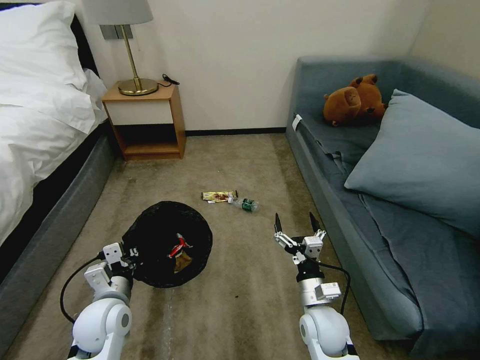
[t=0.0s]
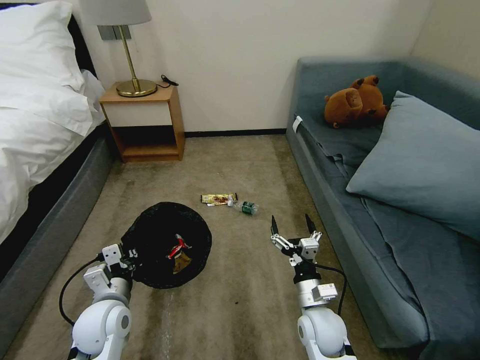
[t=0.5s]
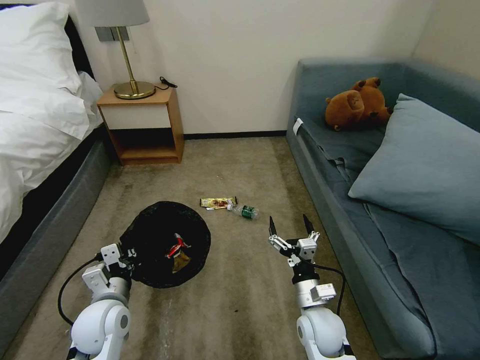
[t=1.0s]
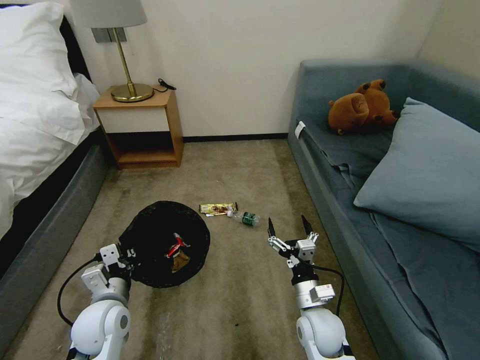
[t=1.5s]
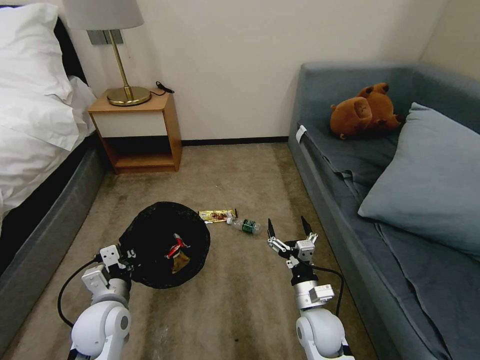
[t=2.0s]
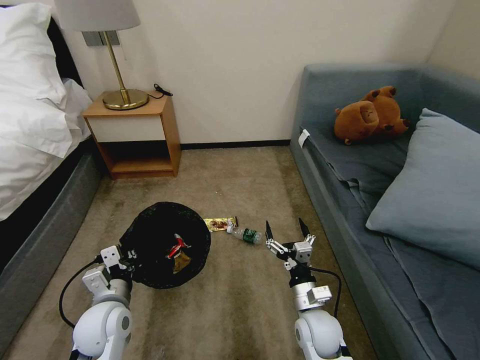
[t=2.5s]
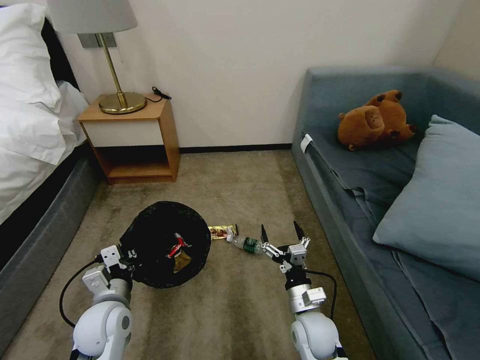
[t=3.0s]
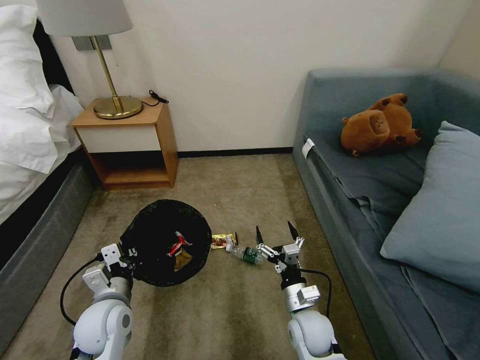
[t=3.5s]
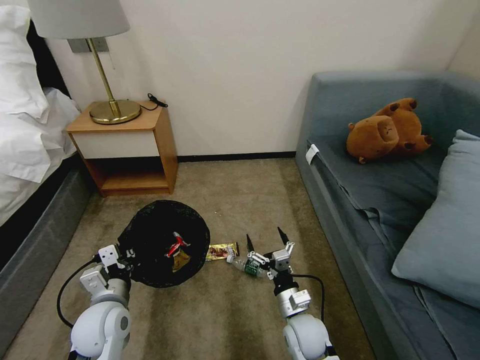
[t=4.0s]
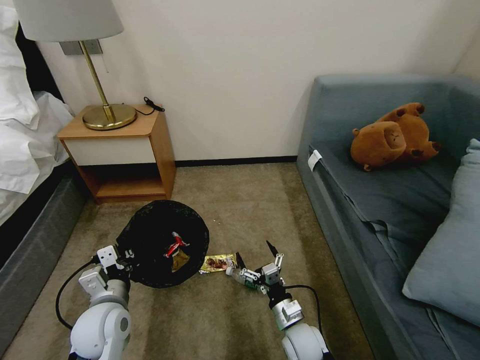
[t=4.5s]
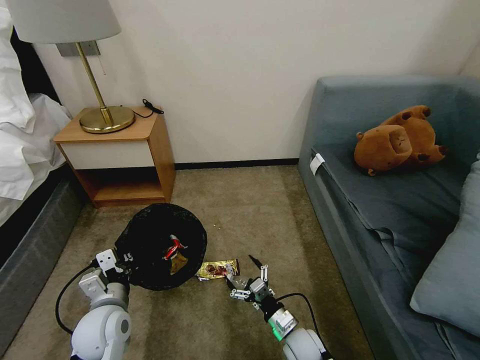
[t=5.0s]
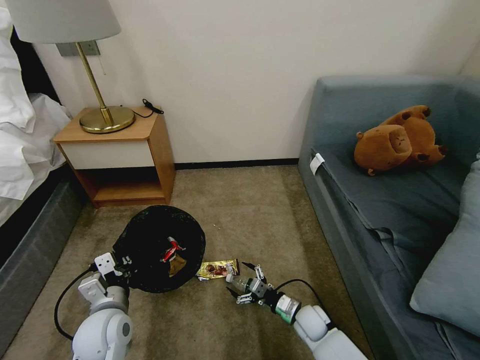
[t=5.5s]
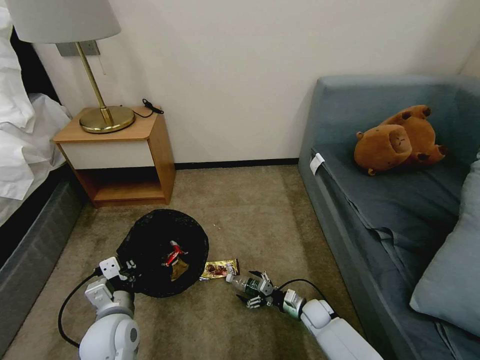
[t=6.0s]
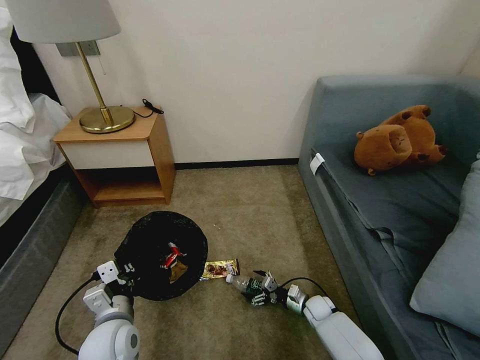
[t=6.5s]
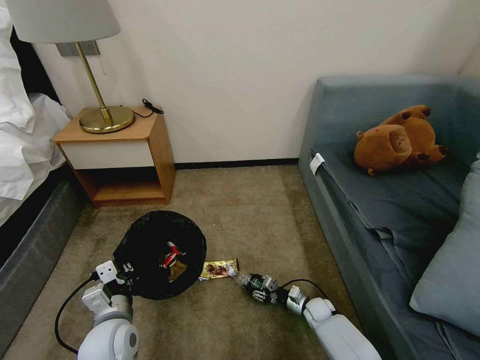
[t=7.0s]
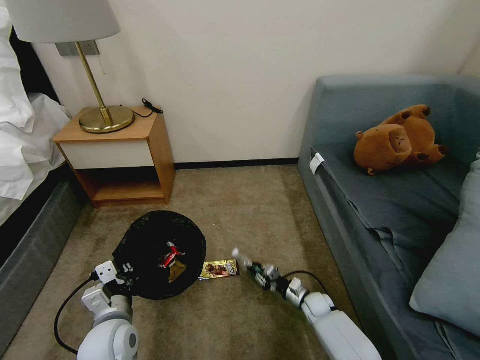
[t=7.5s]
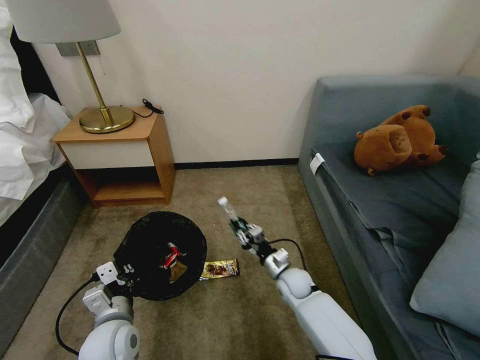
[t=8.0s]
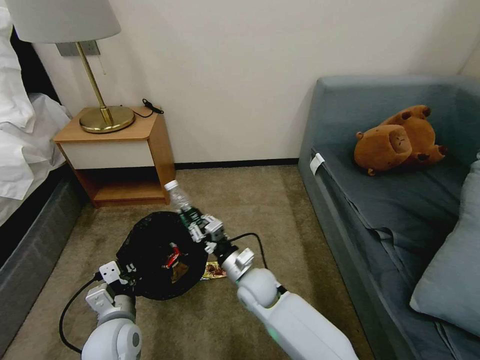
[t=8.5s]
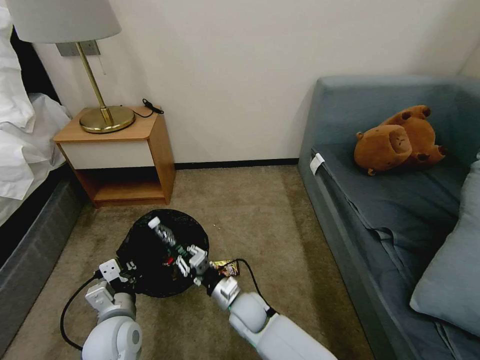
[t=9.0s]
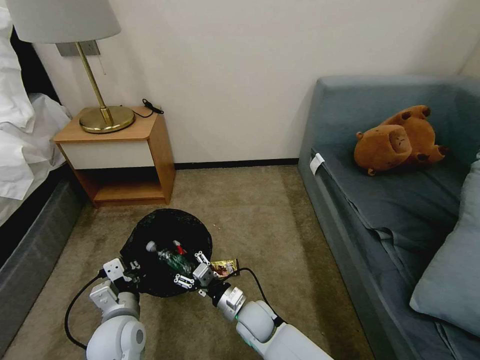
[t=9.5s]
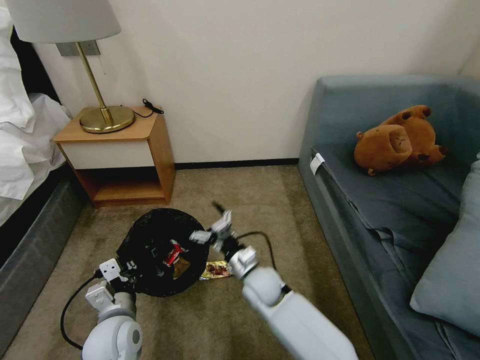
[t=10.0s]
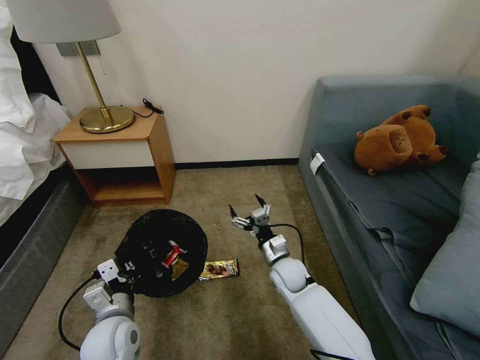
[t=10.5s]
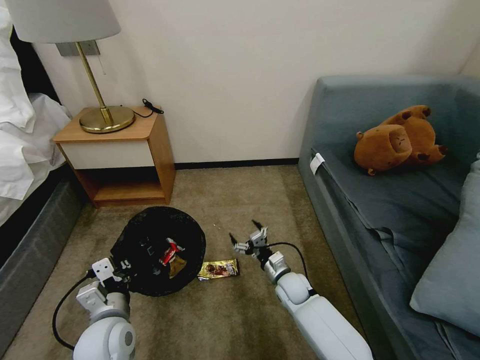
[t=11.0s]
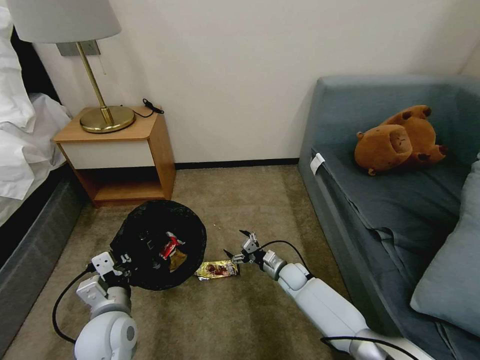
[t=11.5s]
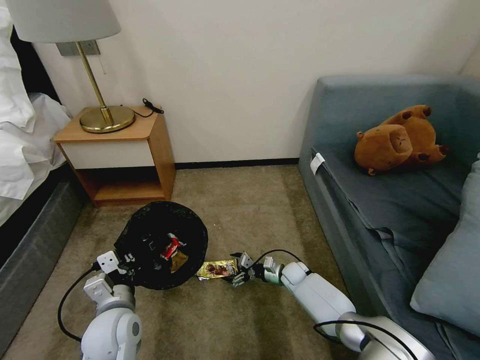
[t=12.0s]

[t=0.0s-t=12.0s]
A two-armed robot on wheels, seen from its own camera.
Task of the whole recording: Pick up the trash bin, then pick up the garbage on the floor and place it into the trash bin.
t=4.0s to t=6.0s: The right gripper heads downward, to the right and forward, covering about 20 cm.
t=6.0s to t=8.0s: The right gripper travels upward, to the left and forward by approximately 15 cm, and closes up.
t=8.0s to t=10.0s: The right gripper travels to the left and upward by approximately 15 cm, and opens up.
t=10.0s to t=12.0s: The right gripper shifts some 25 cm downward, to the right and forward.

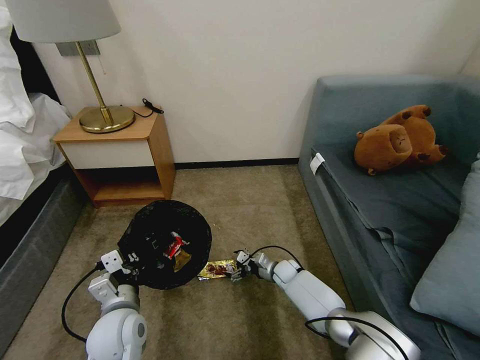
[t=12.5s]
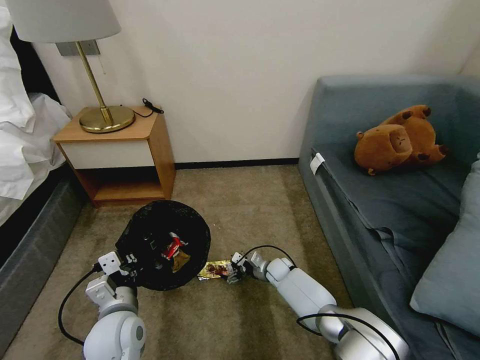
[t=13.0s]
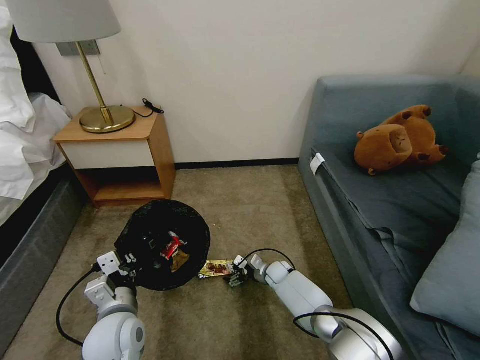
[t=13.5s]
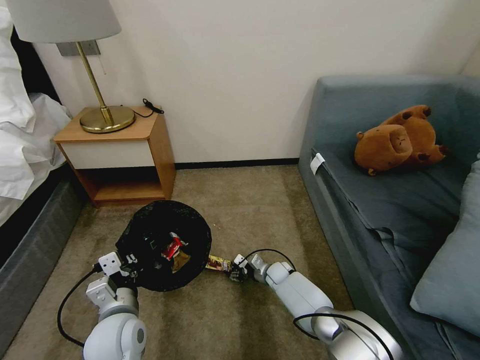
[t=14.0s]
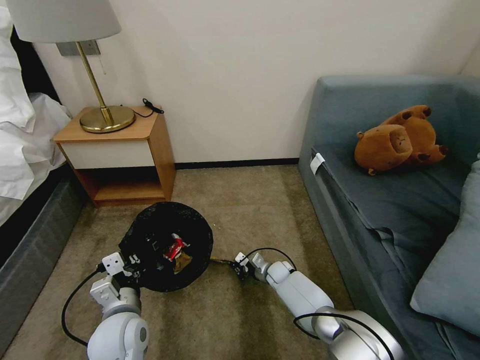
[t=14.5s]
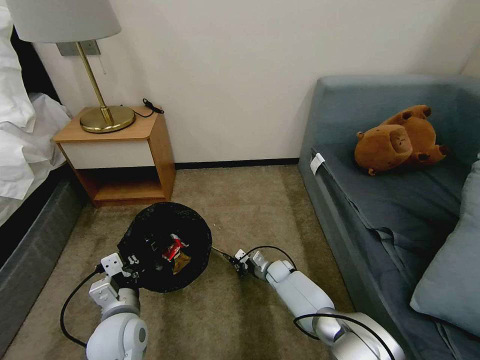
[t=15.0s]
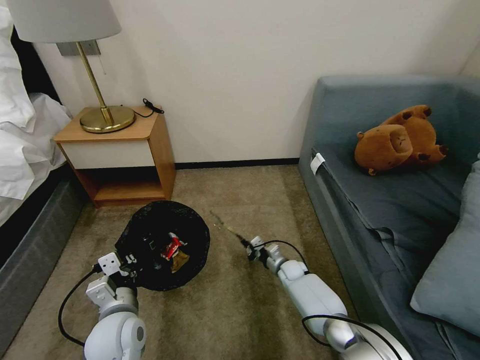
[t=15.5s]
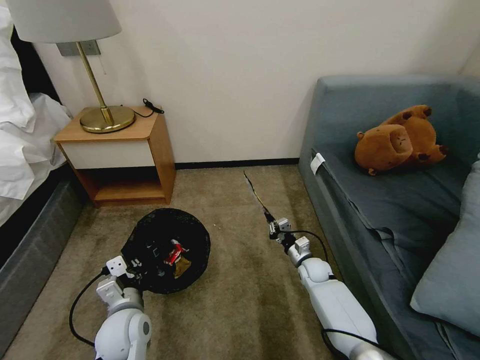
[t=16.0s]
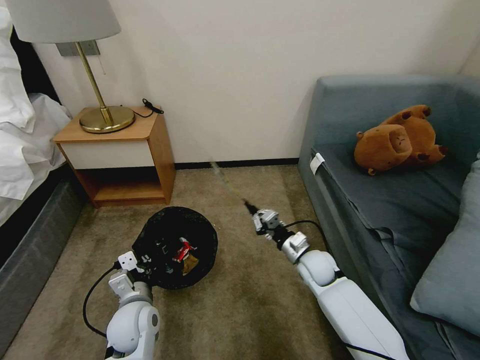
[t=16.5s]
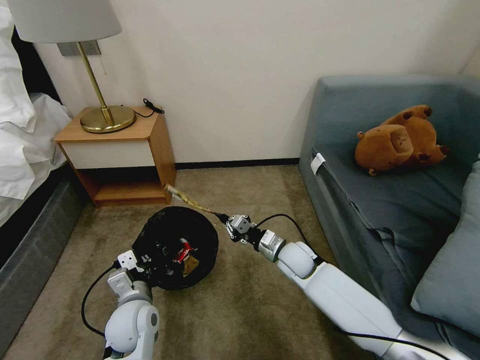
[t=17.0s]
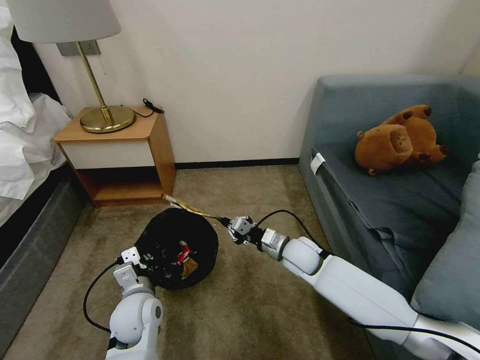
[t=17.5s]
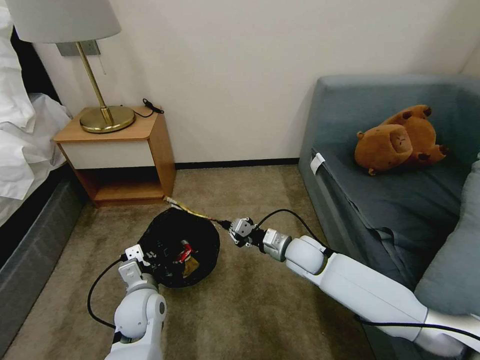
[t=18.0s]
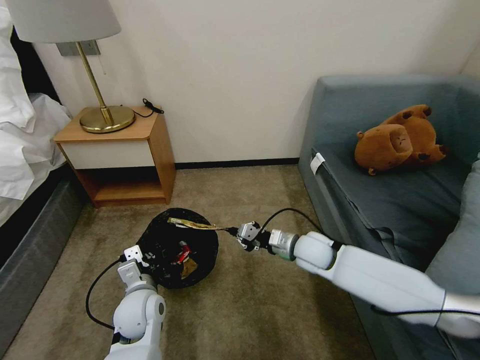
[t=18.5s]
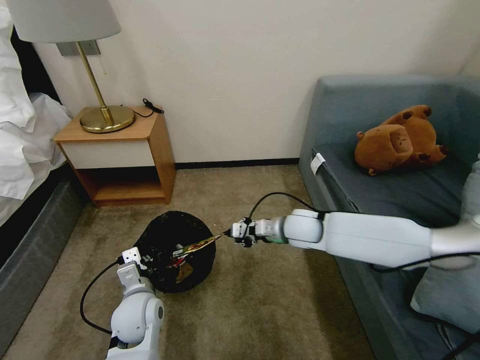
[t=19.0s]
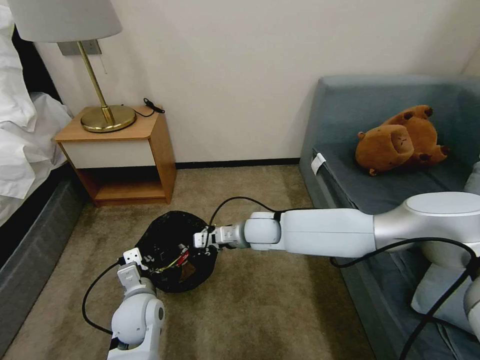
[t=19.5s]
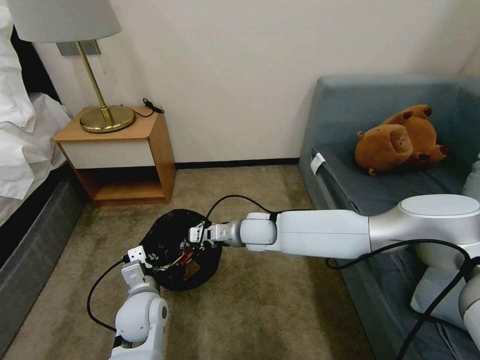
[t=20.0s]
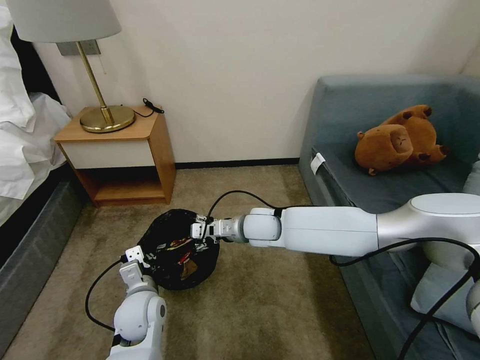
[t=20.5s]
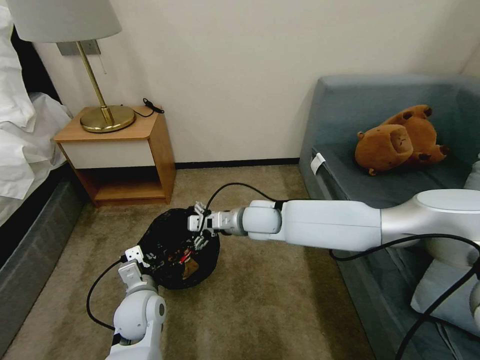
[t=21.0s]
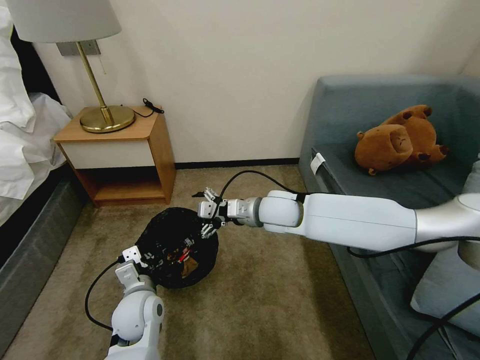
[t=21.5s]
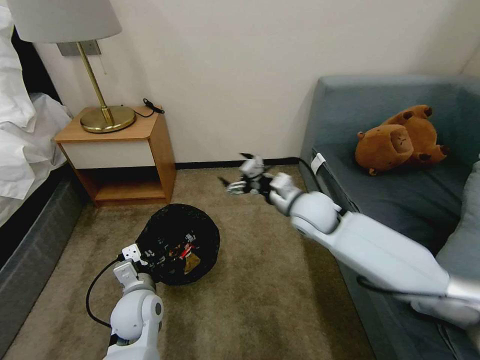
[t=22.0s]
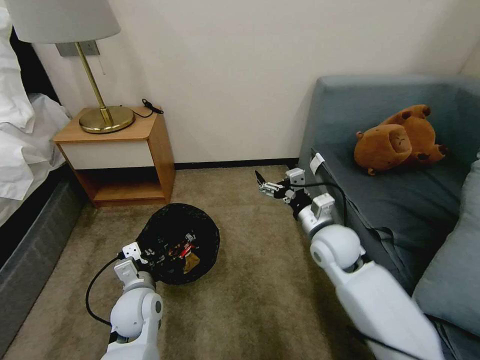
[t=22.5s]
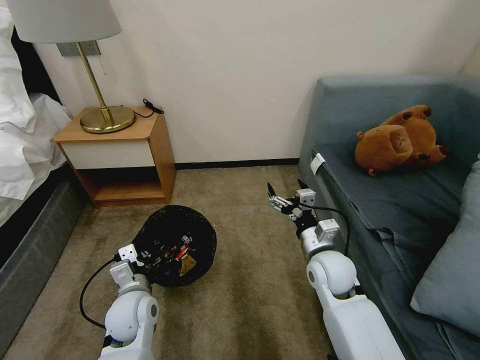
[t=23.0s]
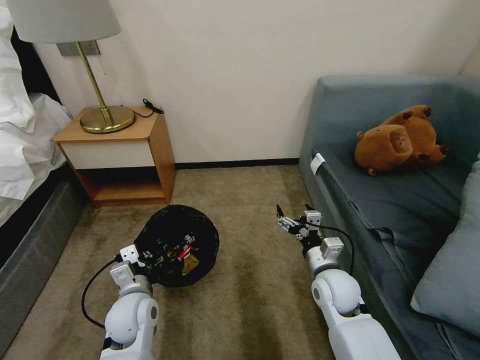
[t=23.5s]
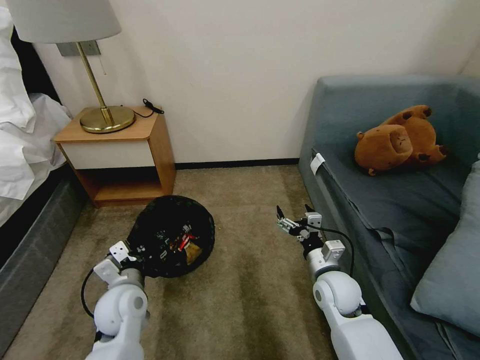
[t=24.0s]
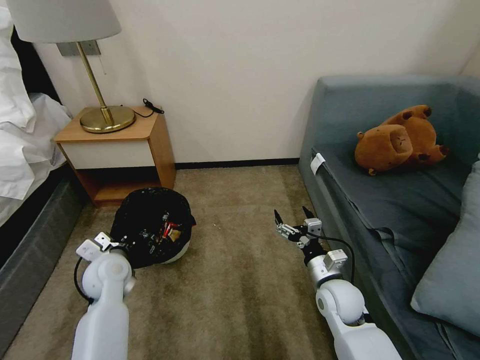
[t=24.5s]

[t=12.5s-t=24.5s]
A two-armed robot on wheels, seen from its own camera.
Task of the whole recording: Pick up the trash bin, then pick up the garbage on the floor and place it into the trash bin.
t=12.5s to t=14.5s: The right gripper closes.
t=14.5s to t=16.5s: The right gripper heads upward, covering about 15 cm; the left gripper changes place by roughly 5 cm.
t=16.5s to t=18.5s: The right gripper is displaced upward by about 5 cm.
t=18.5s to t=20.5s: The right gripper shifts roughly 15 cm to the left, and opens its fingers.
t=20.5s to t=22.5s: The right gripper heads to the right and backward, covering some 15 cm.
t=22.5s to t=24.5s: The left gripper travels to the left and forward by about 10 cm, while the right gripper shifts about 15 cm downward and backward.

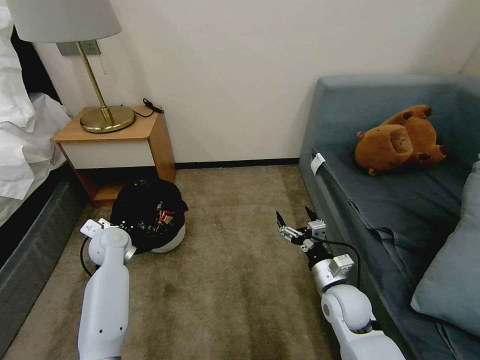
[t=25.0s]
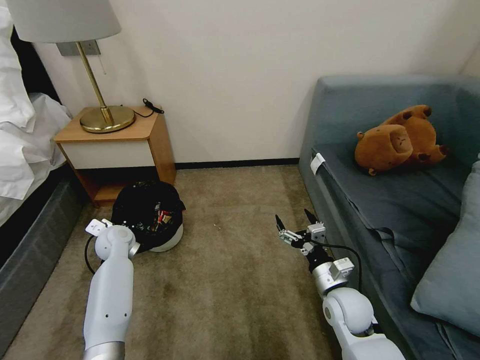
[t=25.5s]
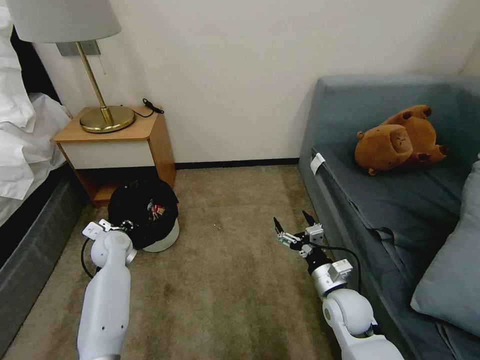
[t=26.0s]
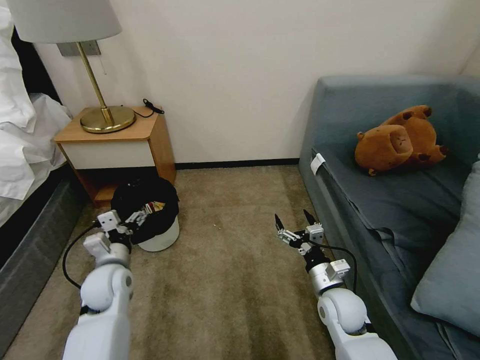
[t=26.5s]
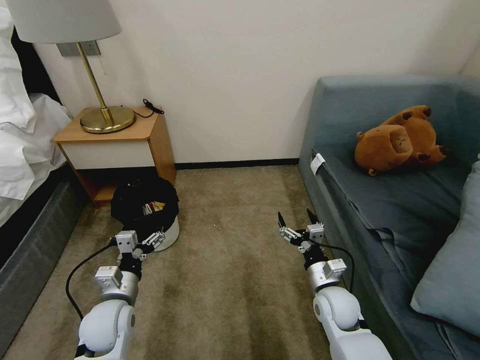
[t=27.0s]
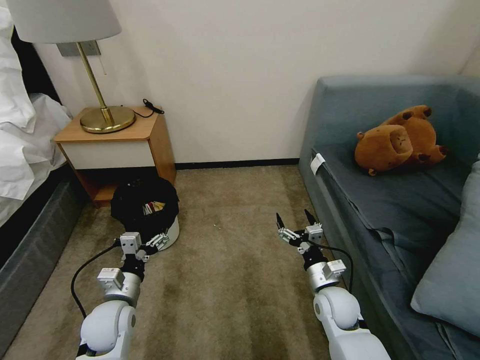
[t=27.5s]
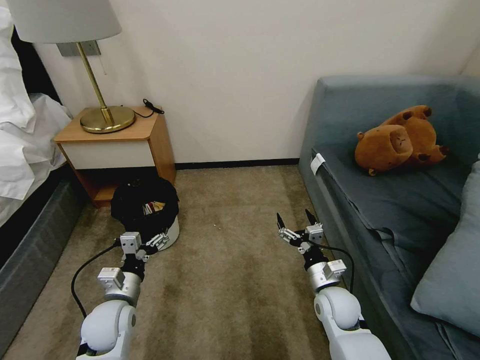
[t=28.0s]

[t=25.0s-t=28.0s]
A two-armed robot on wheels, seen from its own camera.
Task of the whole recording: Pick up the trash bin, then pick up the garbage on the floor and place it into the trash bin.
t=25.0s to t=26.5s: The left gripper heads backward, covering approximately 10 cm, and opens its fingers.
t=26.5s to t=28.0s: The left gripper goes some 5 cm backward.
